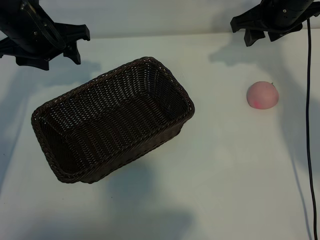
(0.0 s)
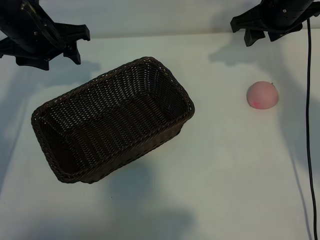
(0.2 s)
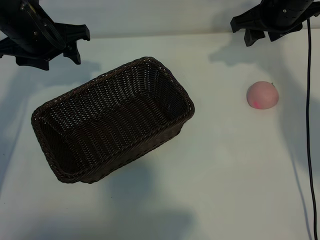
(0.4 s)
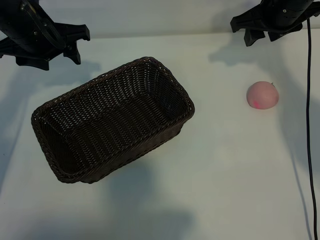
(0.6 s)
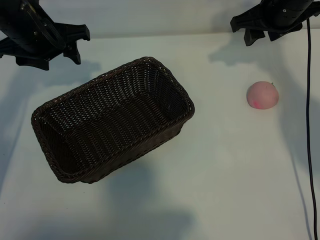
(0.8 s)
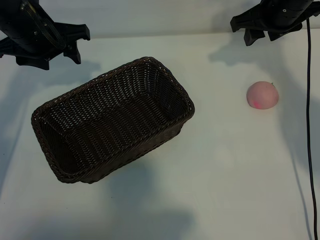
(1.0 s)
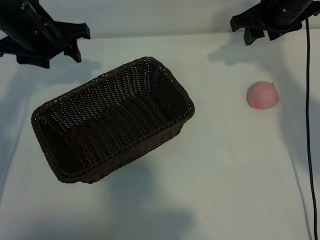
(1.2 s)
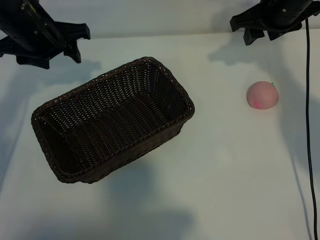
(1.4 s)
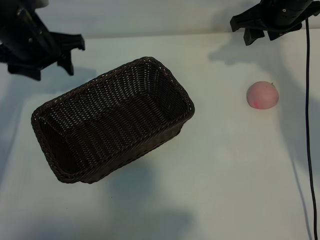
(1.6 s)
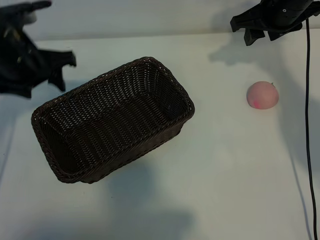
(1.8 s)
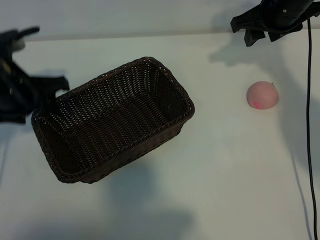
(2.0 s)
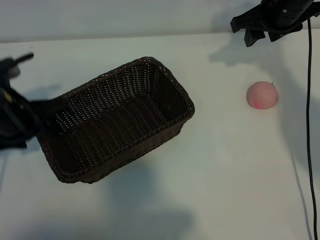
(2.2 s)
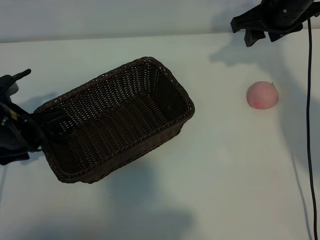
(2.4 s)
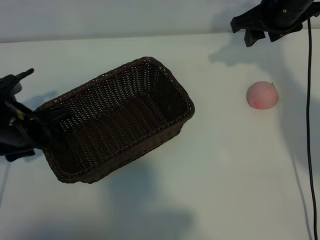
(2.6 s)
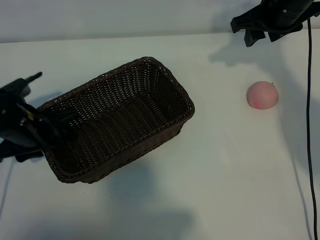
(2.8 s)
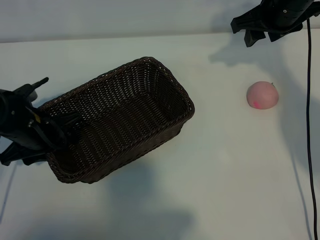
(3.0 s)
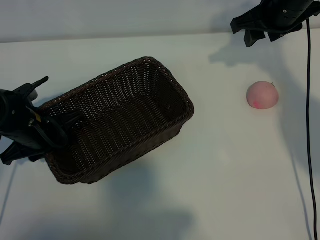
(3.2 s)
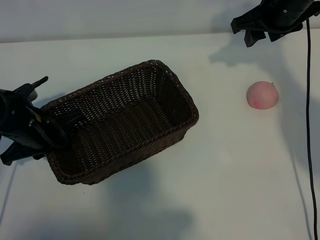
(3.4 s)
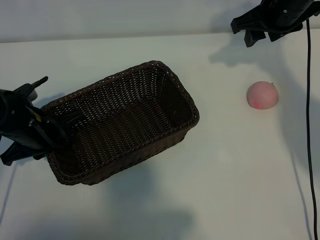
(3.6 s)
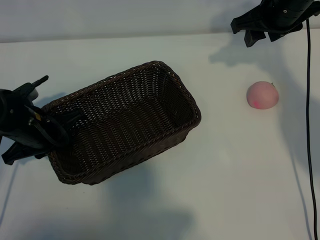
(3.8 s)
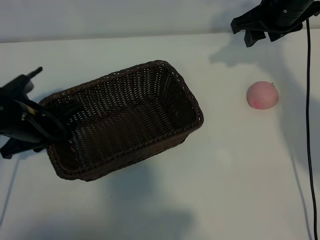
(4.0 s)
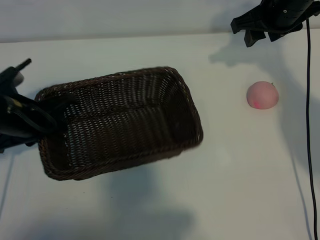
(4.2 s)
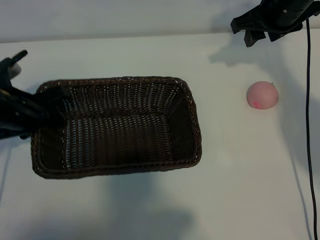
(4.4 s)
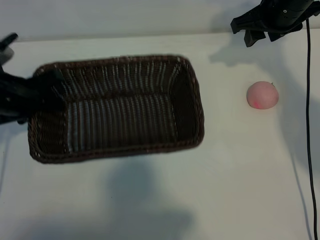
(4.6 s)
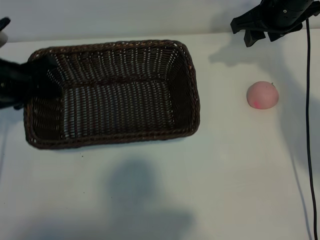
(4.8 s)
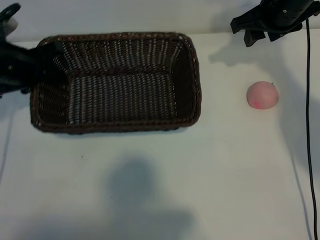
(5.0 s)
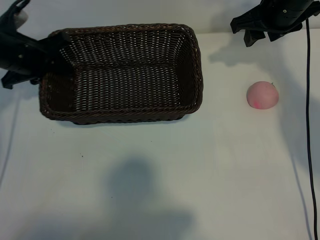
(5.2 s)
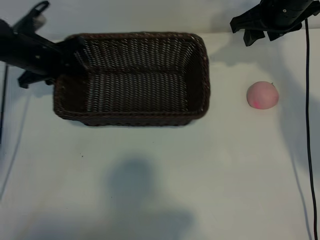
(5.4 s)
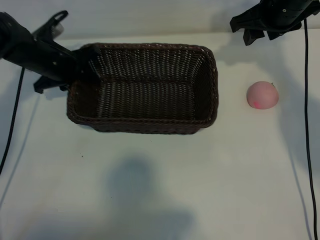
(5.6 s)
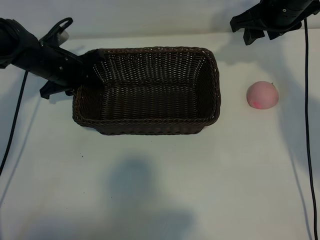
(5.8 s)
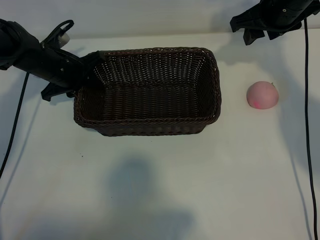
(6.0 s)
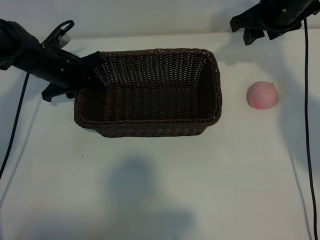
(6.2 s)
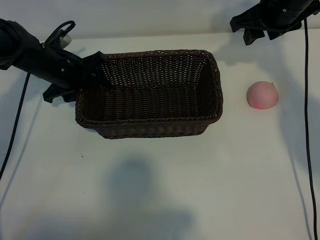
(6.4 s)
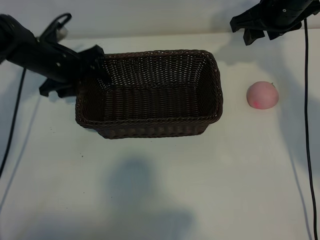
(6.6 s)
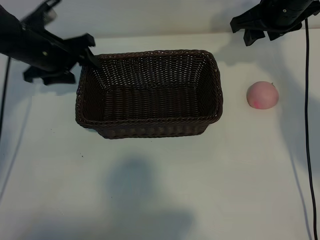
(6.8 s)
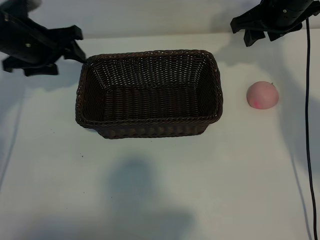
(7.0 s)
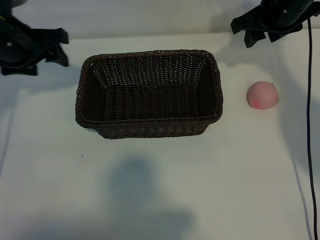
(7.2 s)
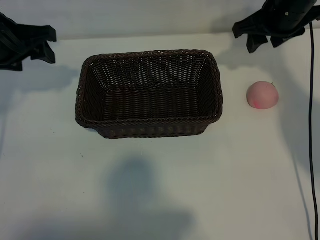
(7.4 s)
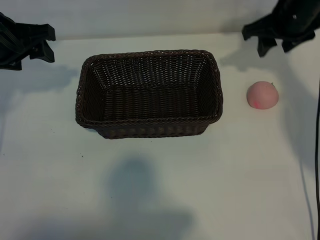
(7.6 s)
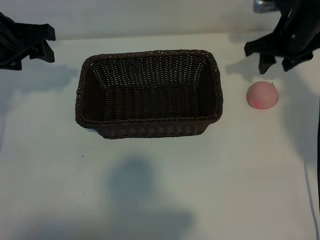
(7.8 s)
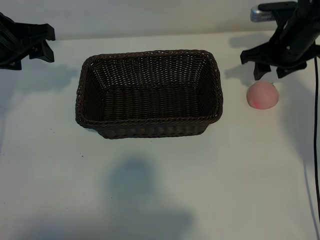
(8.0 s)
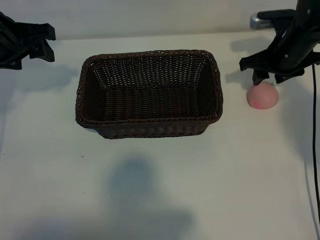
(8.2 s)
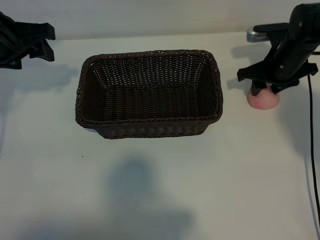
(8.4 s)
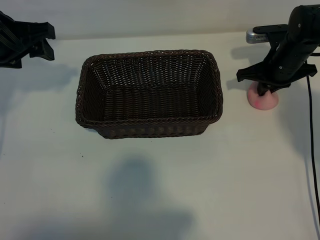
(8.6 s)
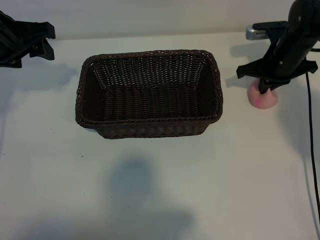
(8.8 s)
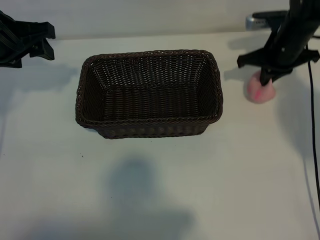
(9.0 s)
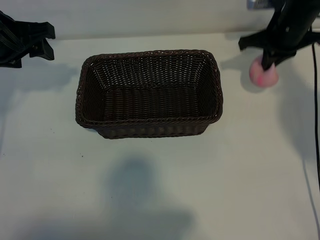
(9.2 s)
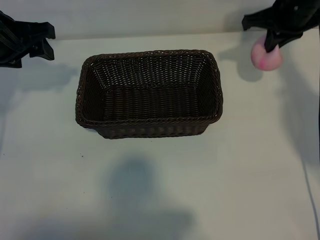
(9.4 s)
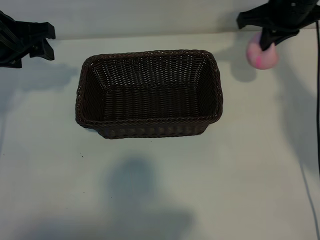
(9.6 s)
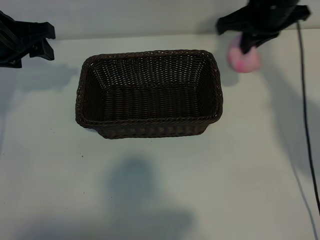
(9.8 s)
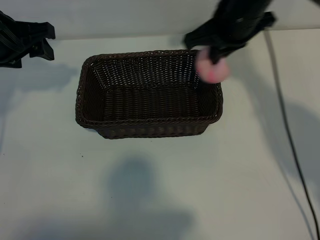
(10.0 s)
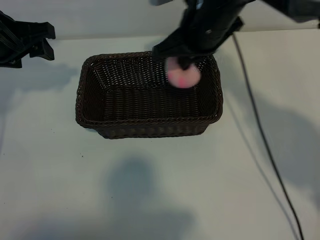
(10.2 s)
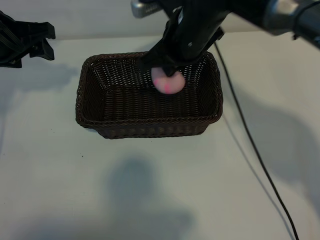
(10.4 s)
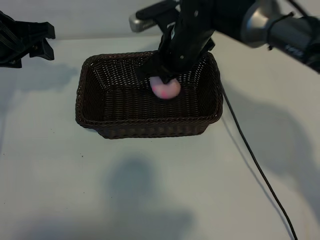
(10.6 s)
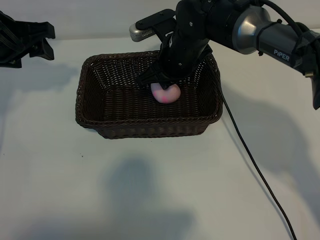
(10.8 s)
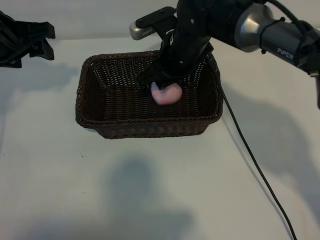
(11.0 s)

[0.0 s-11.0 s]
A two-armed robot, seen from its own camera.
Task of the whole recording: pick up the peach and put it into the basket.
Step, 1.0 to 3.4 s: Grasp the basket with left gripper.
Step, 3.6 to 6.4 s: Place the basket in the center of view with left gripper.
Step, 6.8 to 8.6 s: Grasp the peach with right gripper.
Step, 8.8 to 11.0 s: Place the peach in the basket with right gripper.

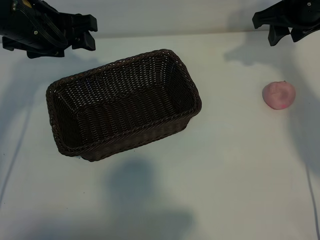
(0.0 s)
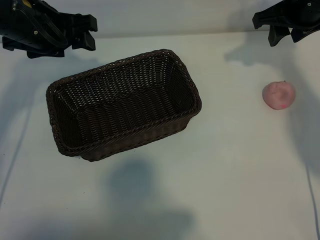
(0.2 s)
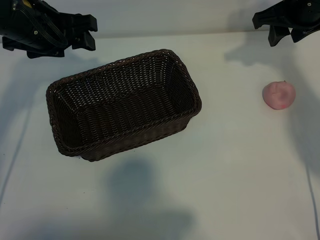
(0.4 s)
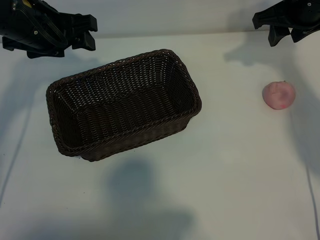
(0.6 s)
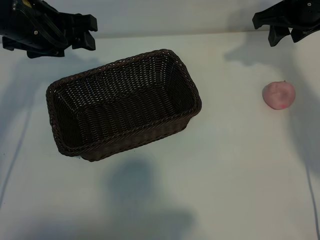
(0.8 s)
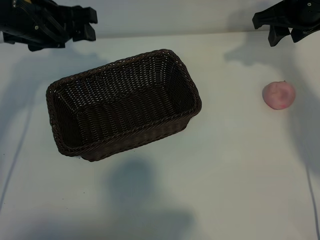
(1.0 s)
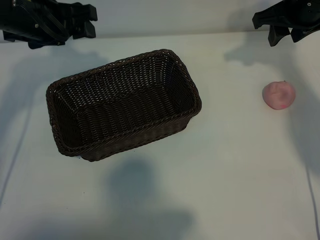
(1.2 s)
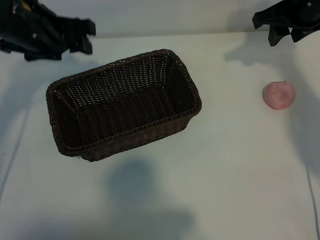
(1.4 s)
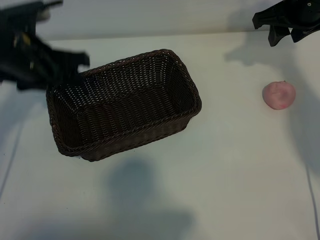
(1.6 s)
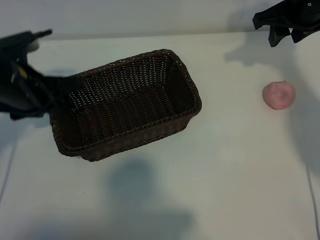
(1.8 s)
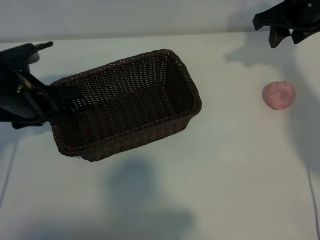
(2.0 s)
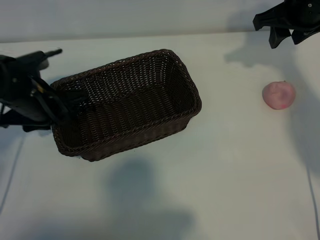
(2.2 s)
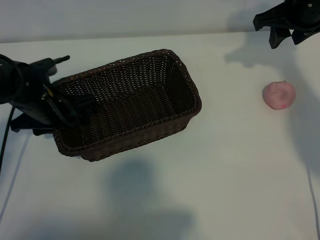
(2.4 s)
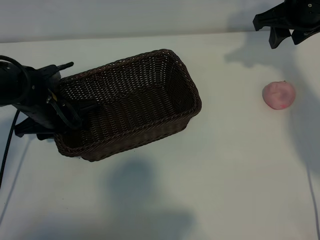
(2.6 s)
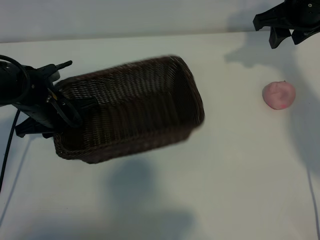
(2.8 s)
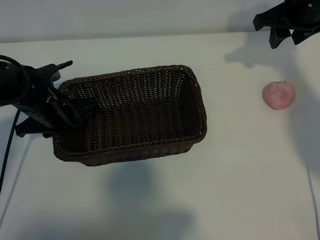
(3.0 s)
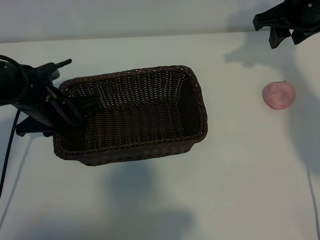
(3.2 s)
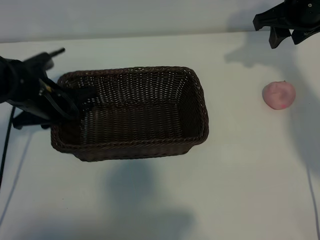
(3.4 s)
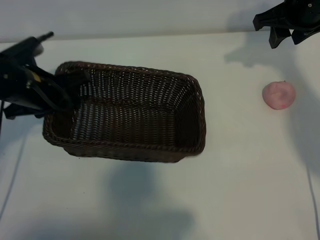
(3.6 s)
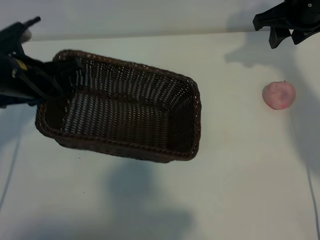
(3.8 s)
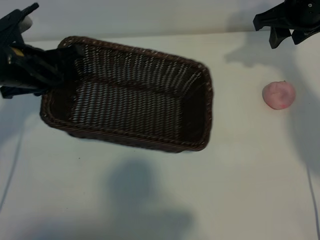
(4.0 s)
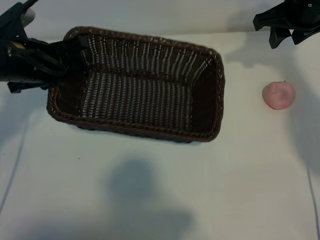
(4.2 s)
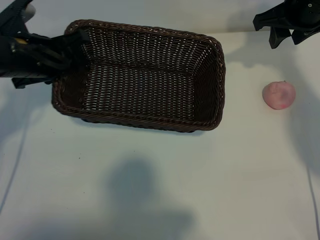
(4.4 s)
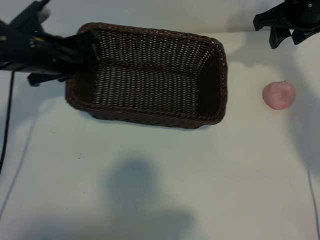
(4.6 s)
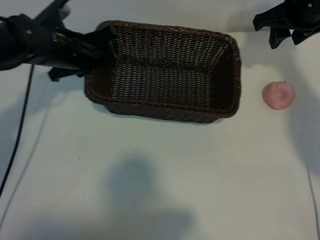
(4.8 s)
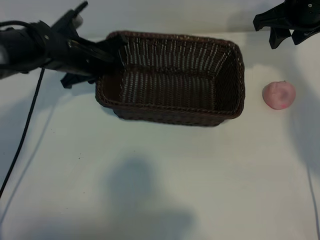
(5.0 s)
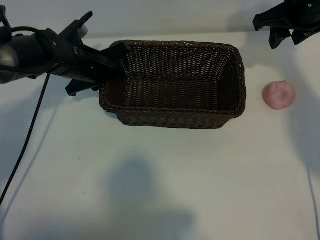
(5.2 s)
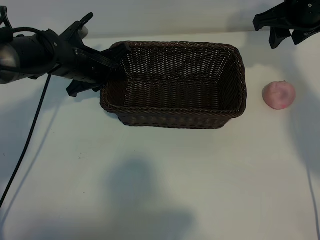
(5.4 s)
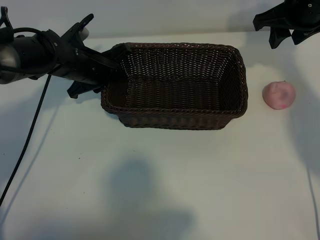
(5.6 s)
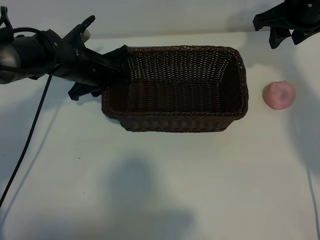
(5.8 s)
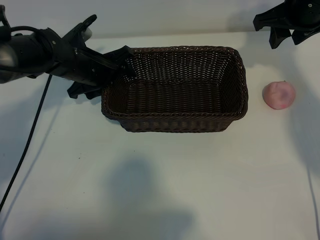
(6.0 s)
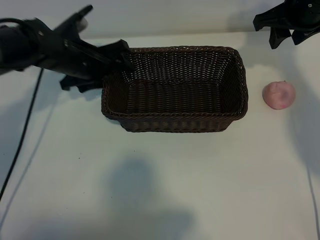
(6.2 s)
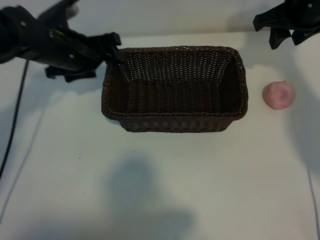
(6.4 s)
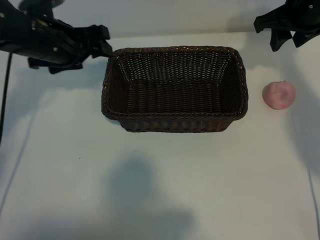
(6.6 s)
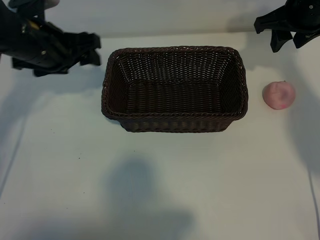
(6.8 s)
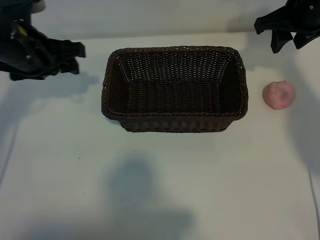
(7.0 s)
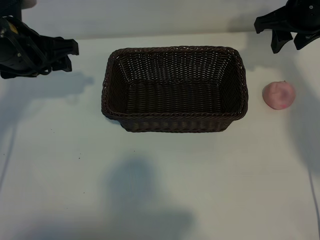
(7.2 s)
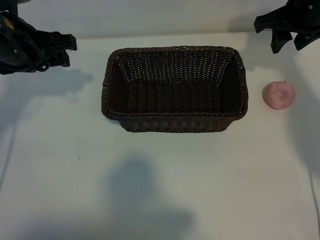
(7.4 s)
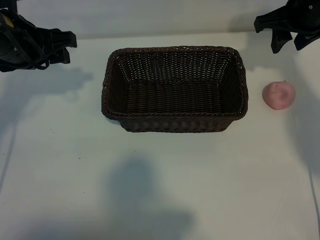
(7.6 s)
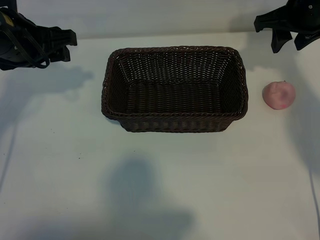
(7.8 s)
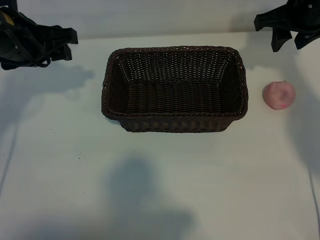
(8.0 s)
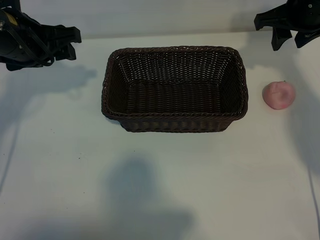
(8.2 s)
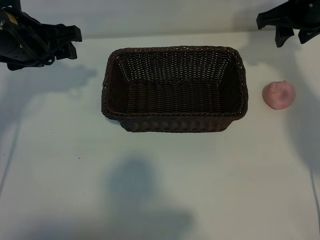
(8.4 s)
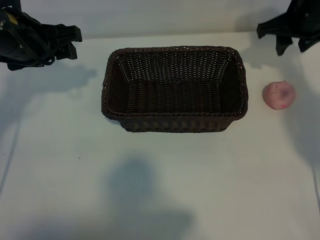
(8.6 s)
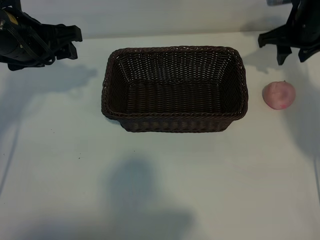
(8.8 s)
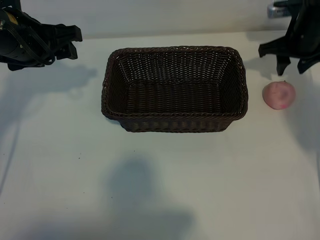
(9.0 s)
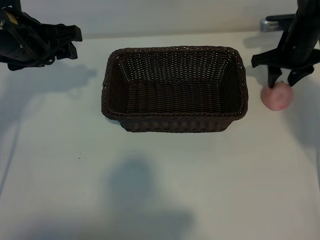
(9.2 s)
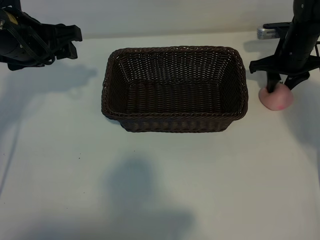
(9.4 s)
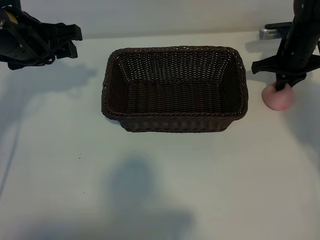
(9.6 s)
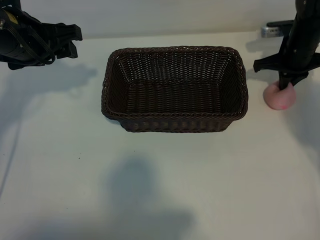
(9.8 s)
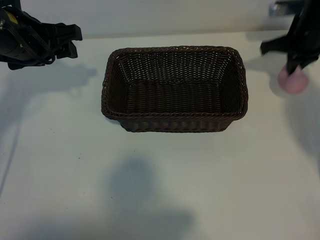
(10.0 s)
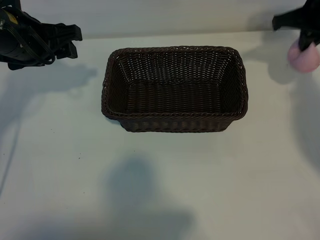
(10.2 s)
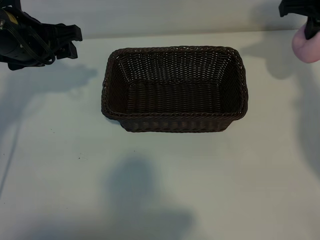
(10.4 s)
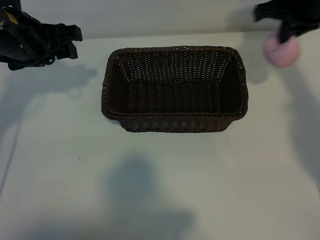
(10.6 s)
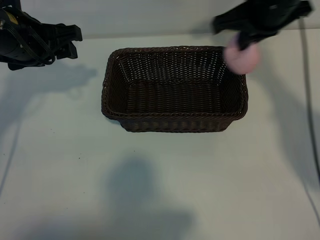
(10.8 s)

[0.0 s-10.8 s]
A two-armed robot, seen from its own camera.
Task of the whole recording: pick up the peach and put it into the basket.
Step, 1.0 to 2.8 s: Grasp the basket with left gripper.
Step, 3.2 to 6.2 s: Place the basket in the center of view with left gripper.
Step, 6.4 to 9.4 s: Grasp the peach with right gripper.
